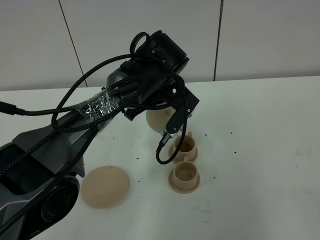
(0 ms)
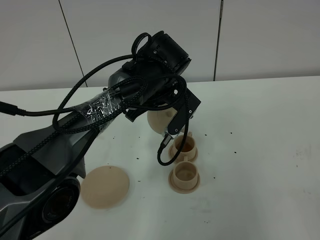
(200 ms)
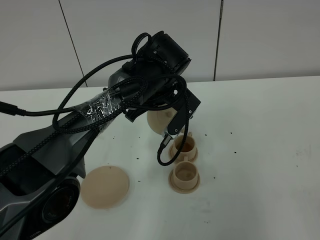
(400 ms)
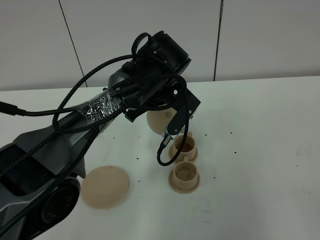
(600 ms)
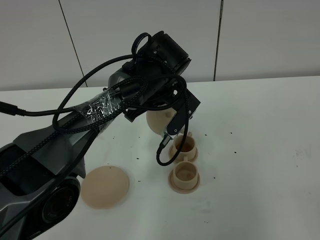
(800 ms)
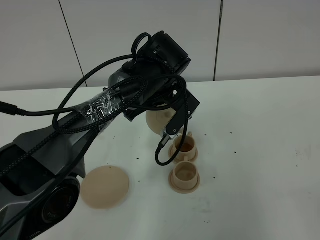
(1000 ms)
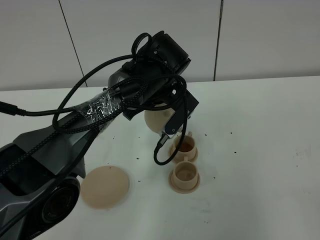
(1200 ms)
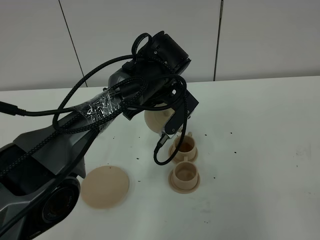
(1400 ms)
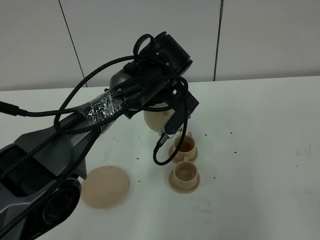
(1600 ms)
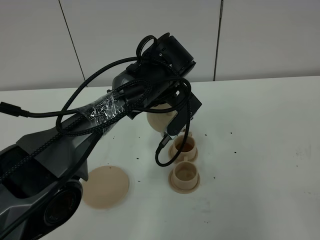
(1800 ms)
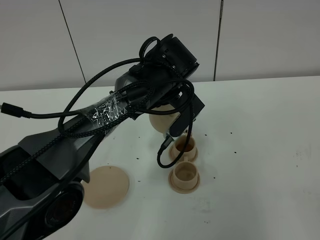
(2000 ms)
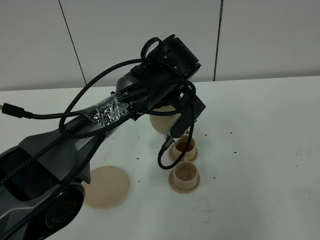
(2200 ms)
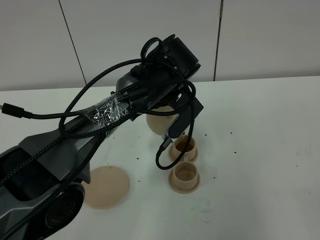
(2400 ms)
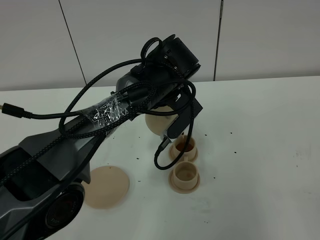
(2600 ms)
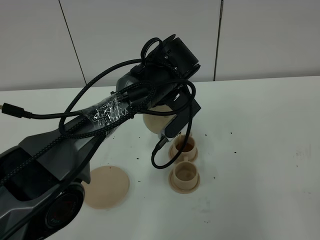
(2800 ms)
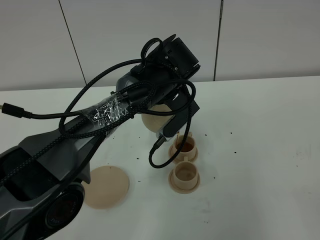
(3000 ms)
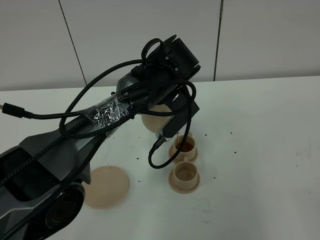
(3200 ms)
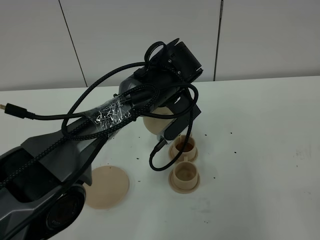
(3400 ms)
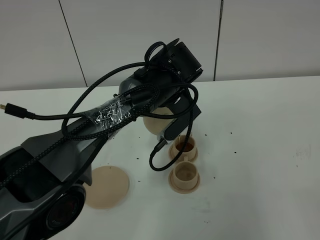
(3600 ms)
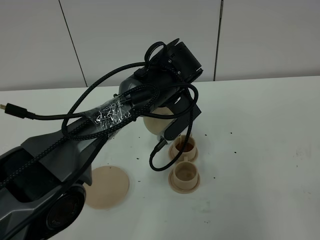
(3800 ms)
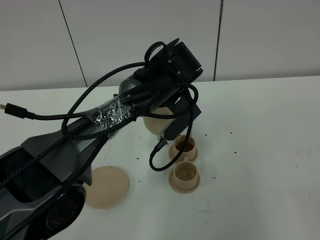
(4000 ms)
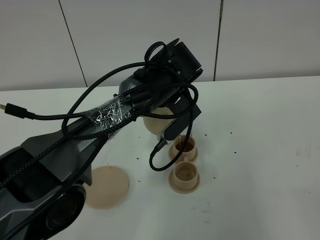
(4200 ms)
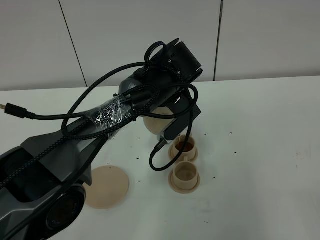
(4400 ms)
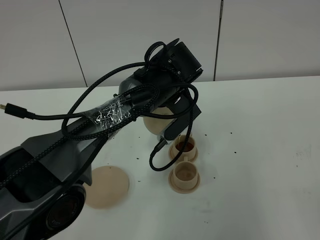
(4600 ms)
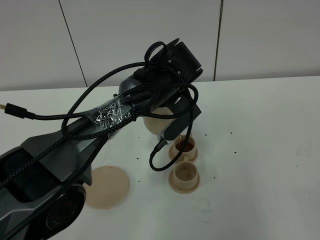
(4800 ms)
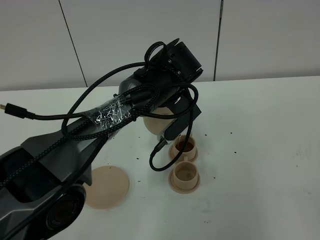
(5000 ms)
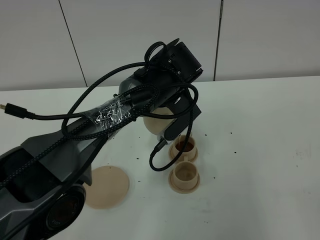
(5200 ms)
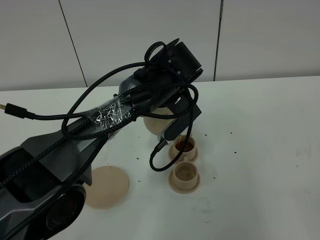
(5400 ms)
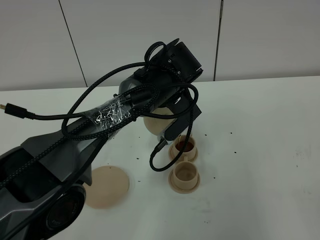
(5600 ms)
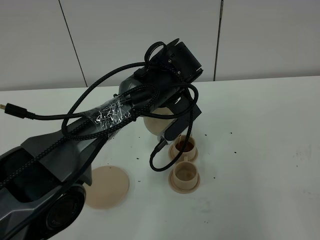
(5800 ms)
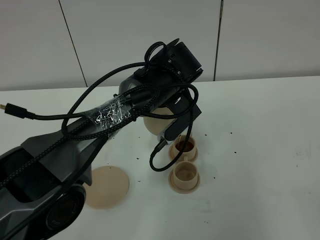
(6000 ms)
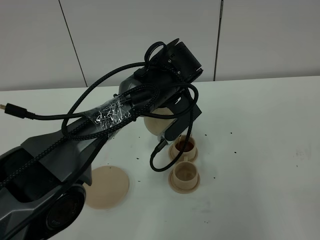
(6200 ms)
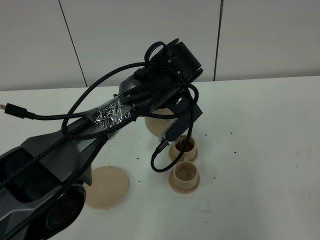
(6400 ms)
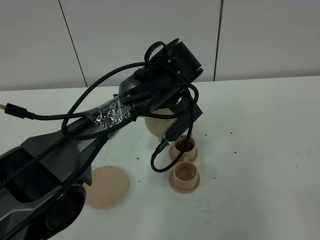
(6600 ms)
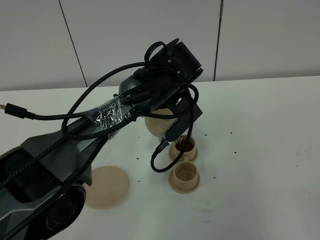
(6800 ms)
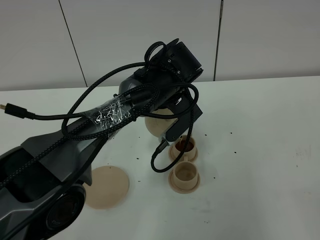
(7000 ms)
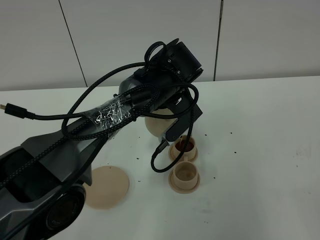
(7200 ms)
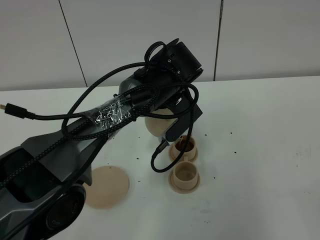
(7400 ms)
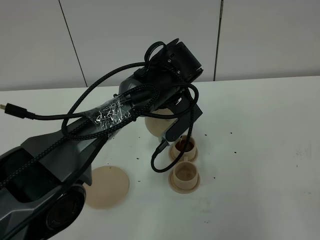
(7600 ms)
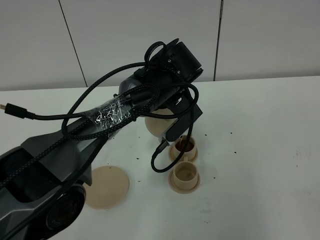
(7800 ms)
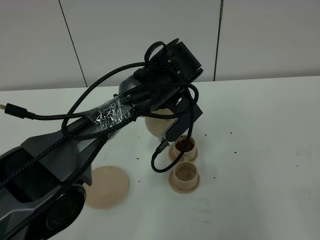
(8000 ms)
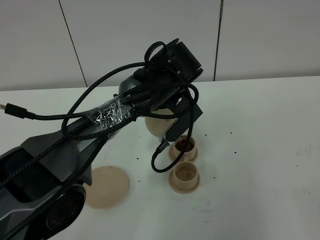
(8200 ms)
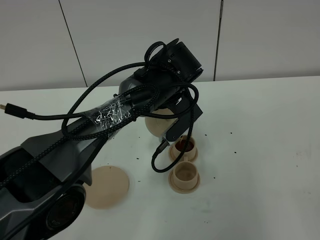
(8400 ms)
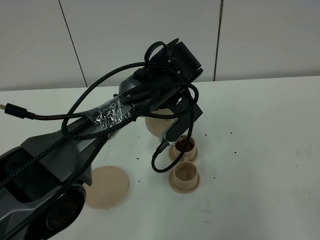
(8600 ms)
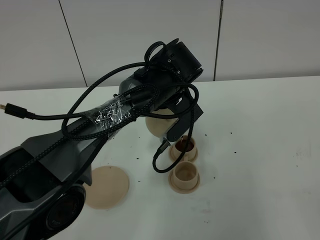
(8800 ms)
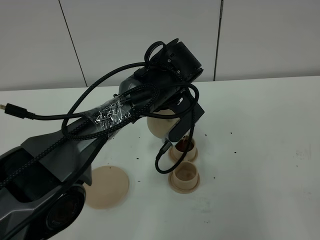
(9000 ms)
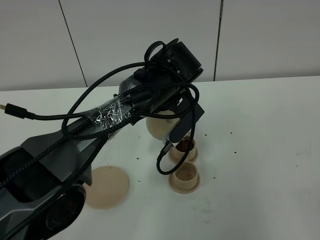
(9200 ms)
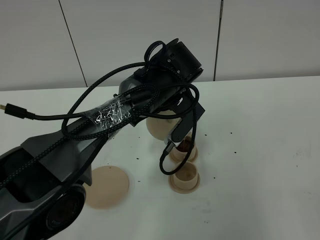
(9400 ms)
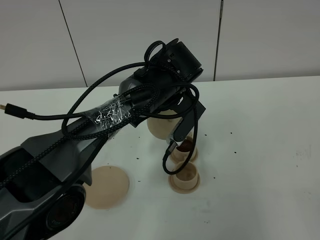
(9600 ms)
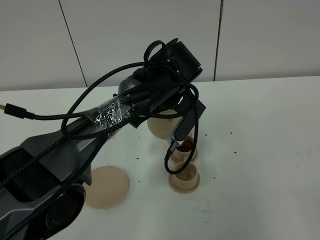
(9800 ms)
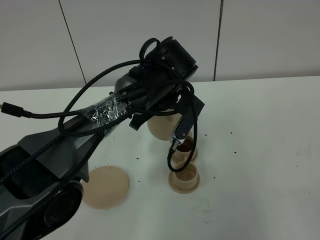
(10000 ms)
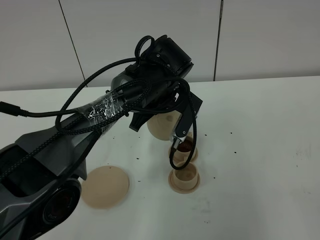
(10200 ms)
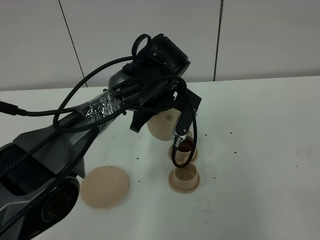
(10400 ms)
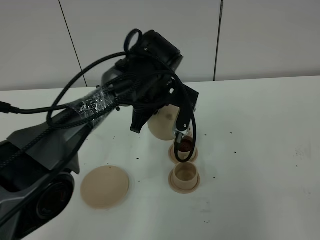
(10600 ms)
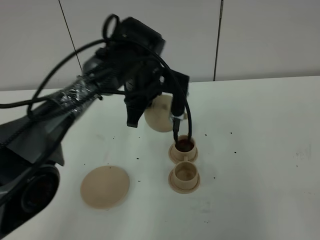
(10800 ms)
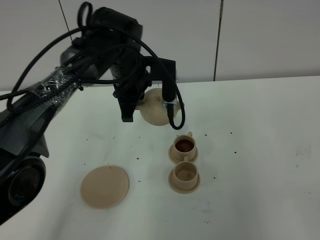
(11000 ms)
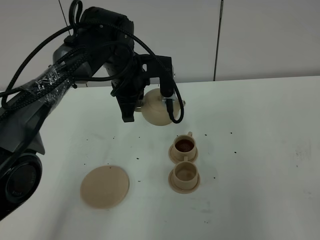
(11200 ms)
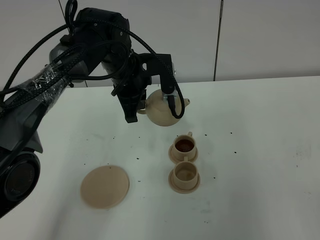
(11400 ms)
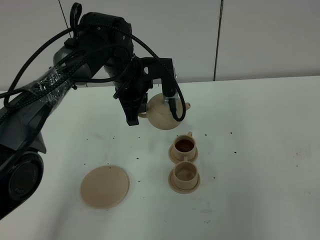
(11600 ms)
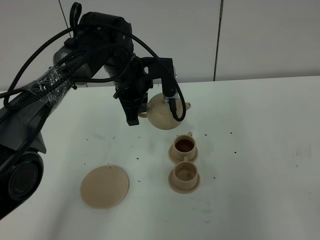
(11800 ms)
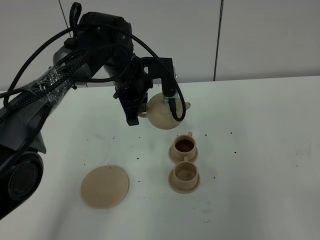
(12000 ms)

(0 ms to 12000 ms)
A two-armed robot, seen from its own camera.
Task of the whole recording: grasp the brown teapot and pour the tea into the two brown teacups one by one, put the brown teapot back in its original place.
Step, 0 ms - 9000 ms: Pour tea into the teacup with the left gripper.
0 ms - 1600 ms: Both grippers stay put.
1600 ms - 3000 ms: The grippers move only a little.
3000 ms - 9000 ms: The two grippers keep their place.
10400 ms - 12000 ms: The left gripper shifts roughly 5 cm to the left.

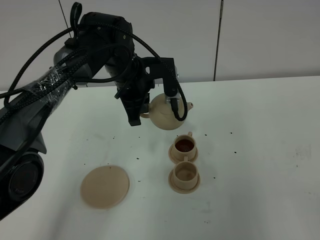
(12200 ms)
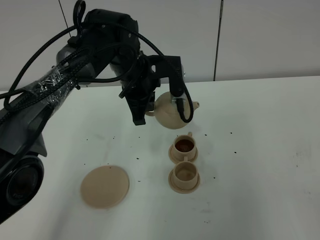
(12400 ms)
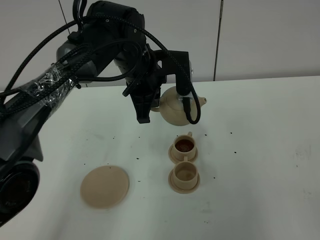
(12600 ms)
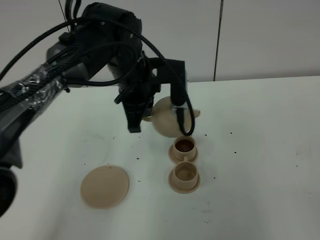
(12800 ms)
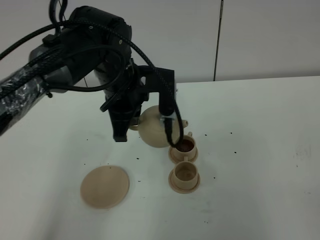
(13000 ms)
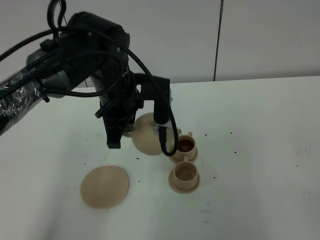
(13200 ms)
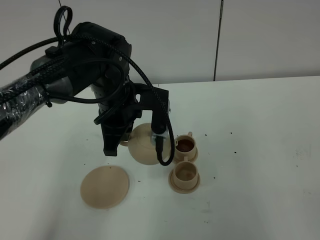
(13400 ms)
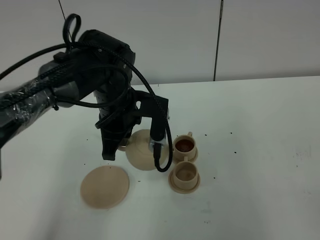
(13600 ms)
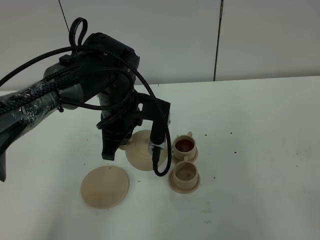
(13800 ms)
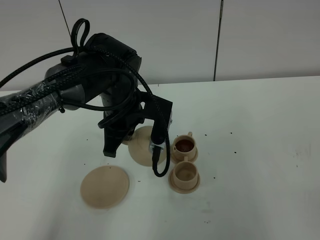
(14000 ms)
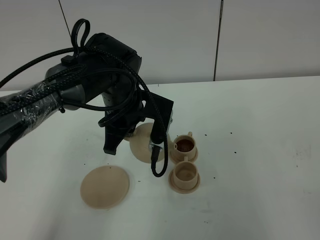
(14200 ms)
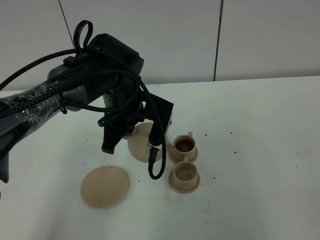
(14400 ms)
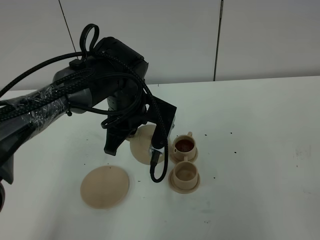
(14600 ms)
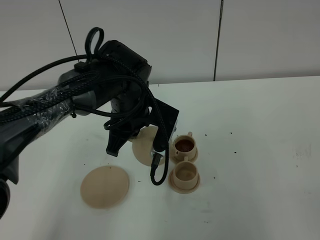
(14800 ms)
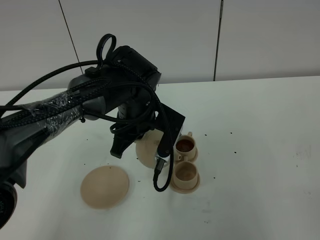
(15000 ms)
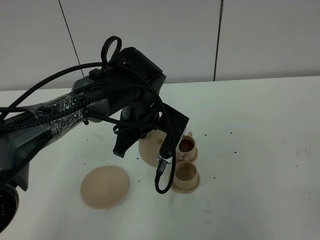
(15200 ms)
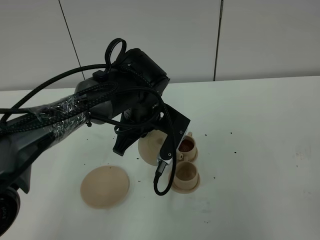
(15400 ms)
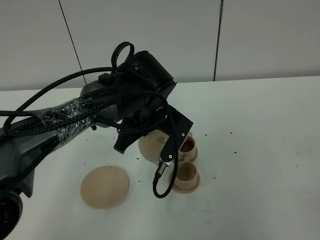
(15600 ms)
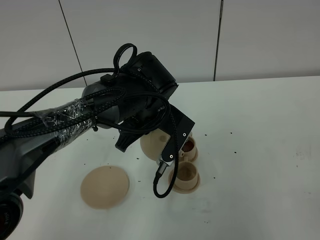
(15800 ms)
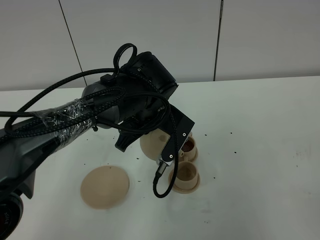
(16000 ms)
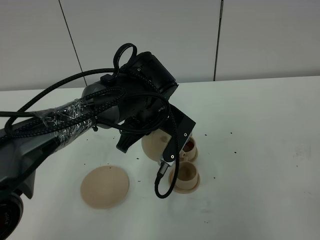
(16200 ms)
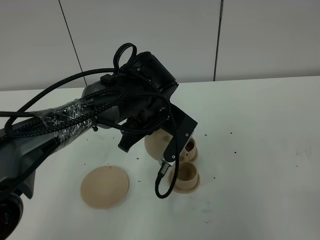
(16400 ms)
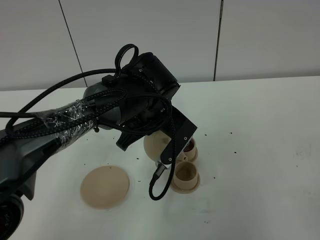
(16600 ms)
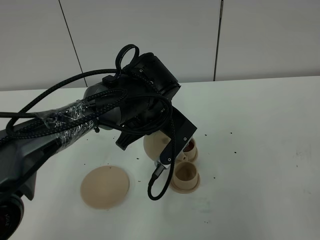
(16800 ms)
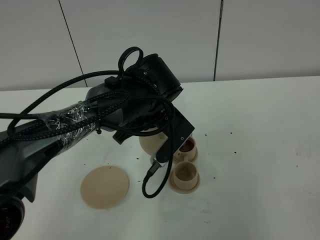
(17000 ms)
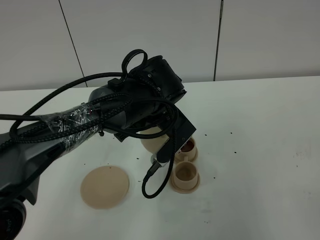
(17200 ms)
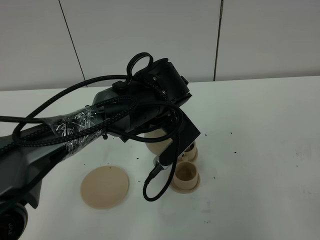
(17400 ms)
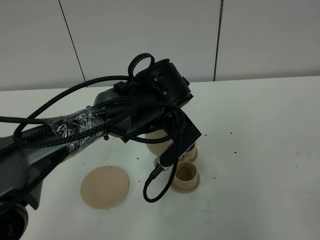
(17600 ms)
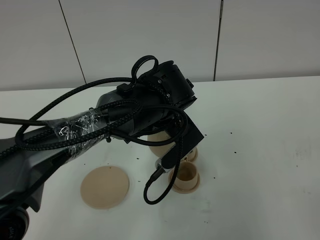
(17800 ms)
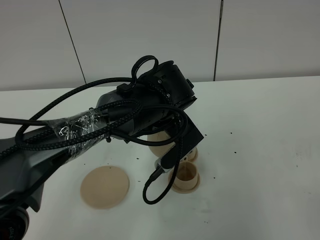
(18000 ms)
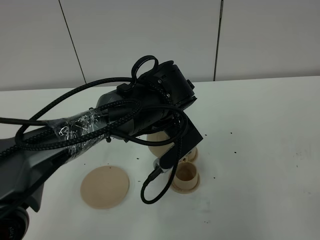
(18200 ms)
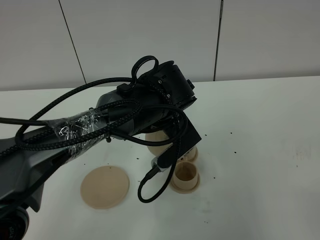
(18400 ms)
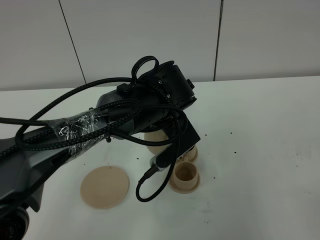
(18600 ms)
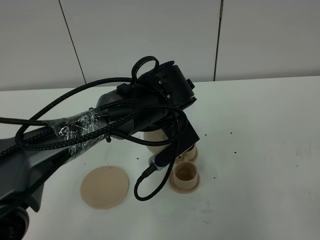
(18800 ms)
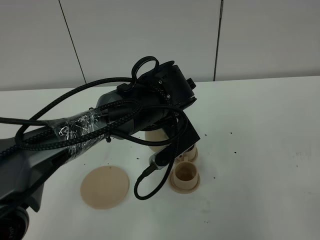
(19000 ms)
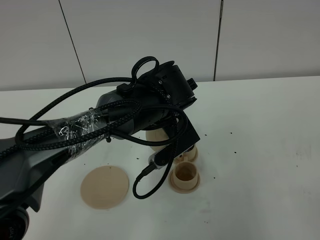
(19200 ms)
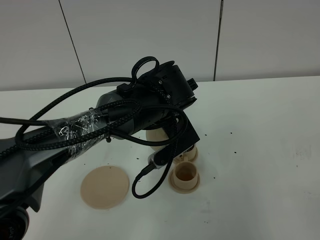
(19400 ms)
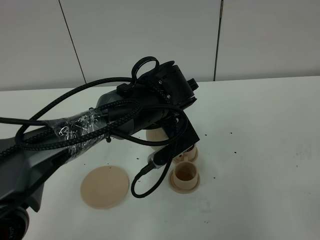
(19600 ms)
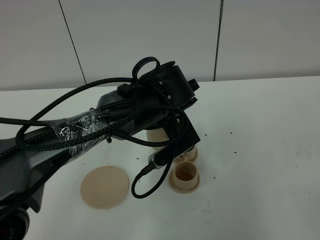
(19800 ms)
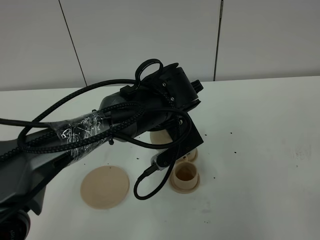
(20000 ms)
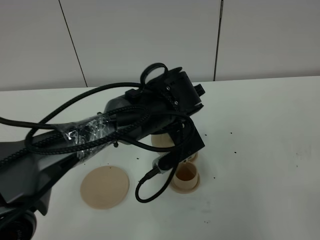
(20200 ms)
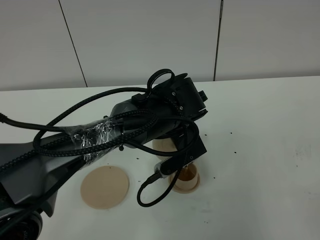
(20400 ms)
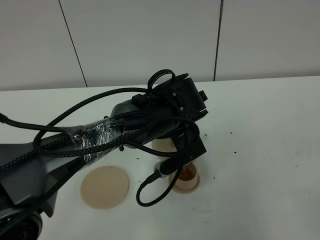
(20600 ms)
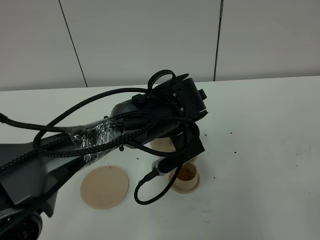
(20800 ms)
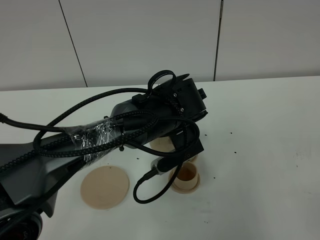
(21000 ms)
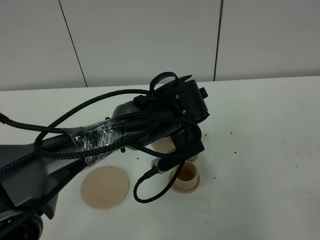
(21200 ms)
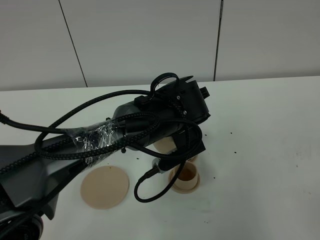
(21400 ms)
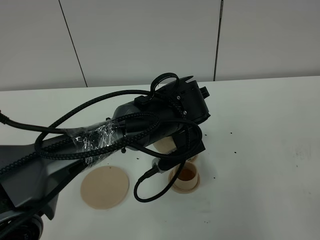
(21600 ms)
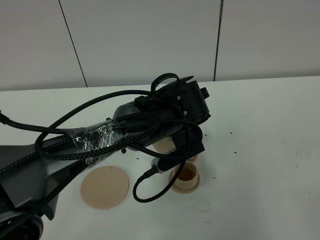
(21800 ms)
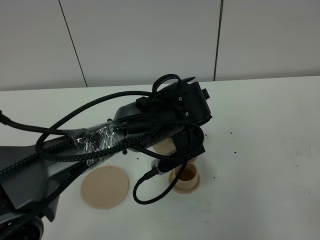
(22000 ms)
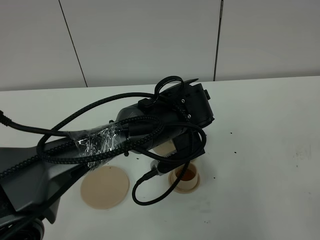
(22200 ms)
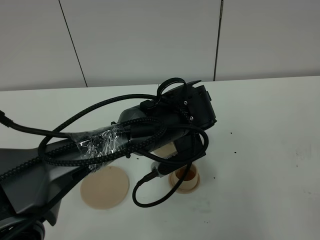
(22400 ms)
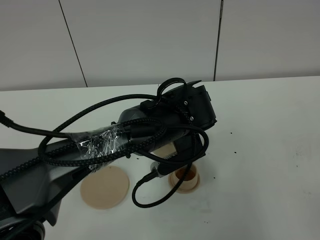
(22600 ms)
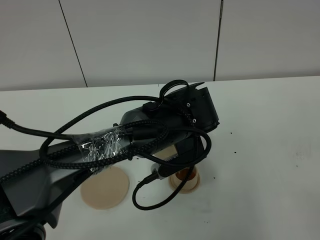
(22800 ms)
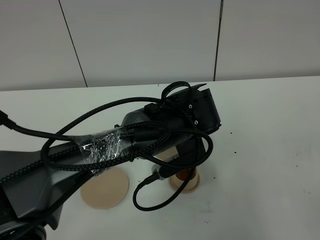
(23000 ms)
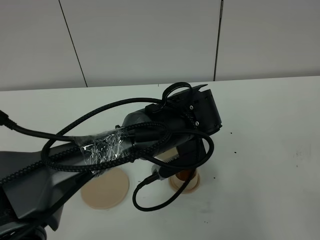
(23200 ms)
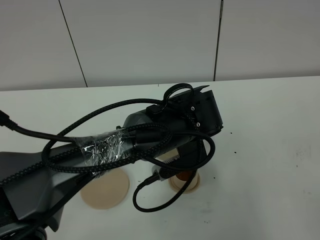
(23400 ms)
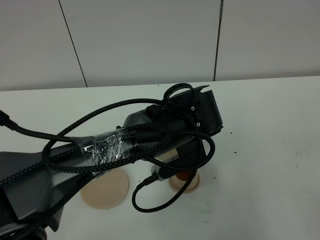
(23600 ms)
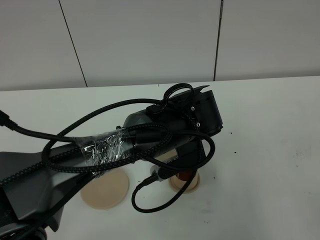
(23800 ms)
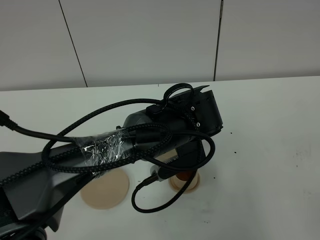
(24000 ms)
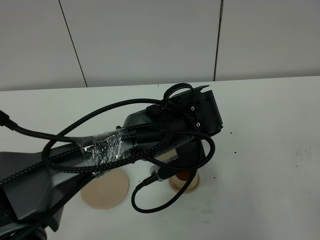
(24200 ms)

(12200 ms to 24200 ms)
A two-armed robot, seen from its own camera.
Task of the whole recording: grasp the brown teapot and pour the tea into the two brown teacups one by one, put the brown teapot back in its original place.
12200 ms - 13800 ms: The left gripper travels backward by roughly 5 cm.
13800 ms - 15200 ms: The grippers move only a little.
15200 ms - 16600 ms: The grippers move only a little.
16600 ms - 18200 ms: The grippers stay close to where they were, moving slightly.
18200 ms - 21200 ms: The grippers make only small movements.
21200 ms - 22600 ms: Both grippers stay about where they are.
22600 ms - 24200 ms: Neither gripper changes place.
